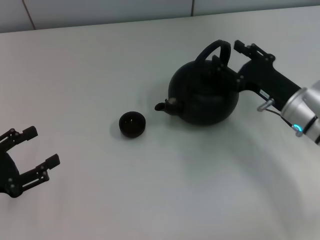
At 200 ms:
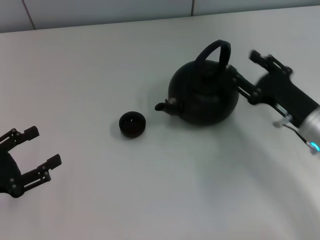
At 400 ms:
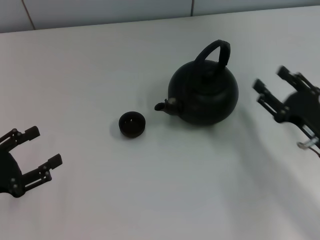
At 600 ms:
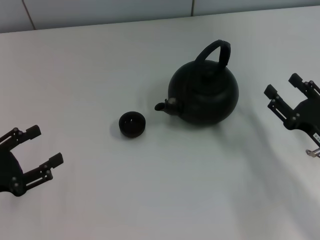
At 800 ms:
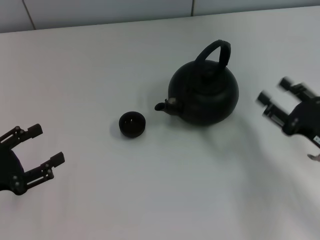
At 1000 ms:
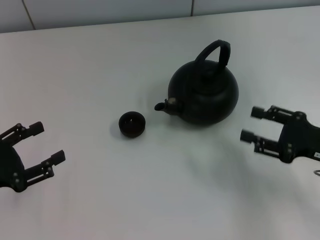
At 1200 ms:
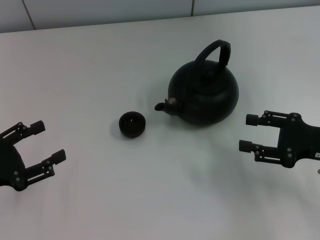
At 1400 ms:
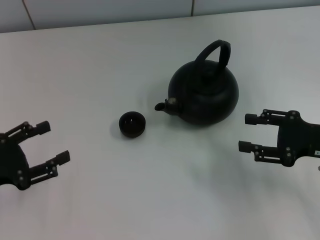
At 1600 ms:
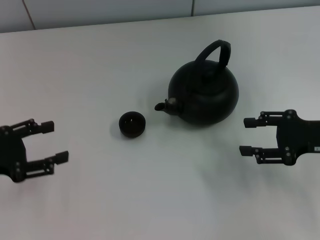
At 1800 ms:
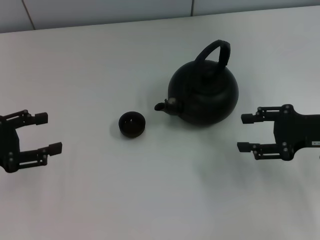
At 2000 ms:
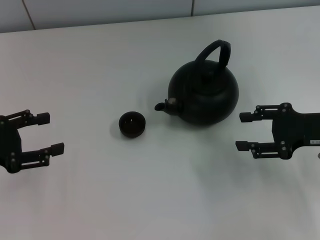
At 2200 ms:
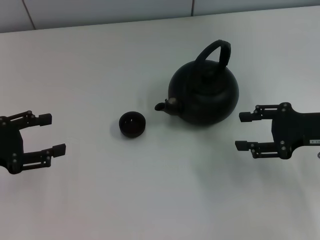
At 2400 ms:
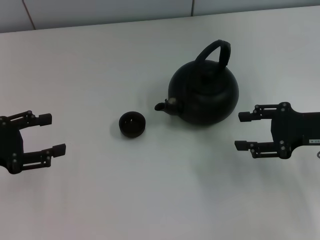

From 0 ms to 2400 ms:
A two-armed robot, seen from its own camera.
Task of the whole recording: Grasp the handle of the teapot with one hand and pour tea into the teacup.
From 0 ms to 1200 ms: The right gripper travels to the right and backward by about 10 cm.
From 1200 ms to 2400 ms: The left gripper goes about 5 cm forward.
